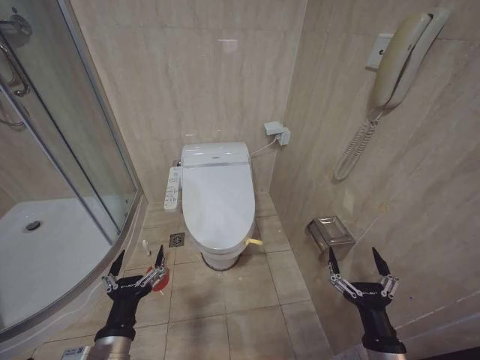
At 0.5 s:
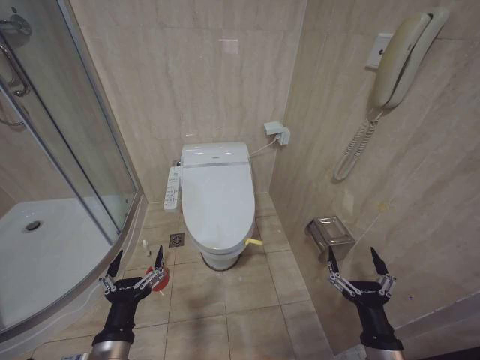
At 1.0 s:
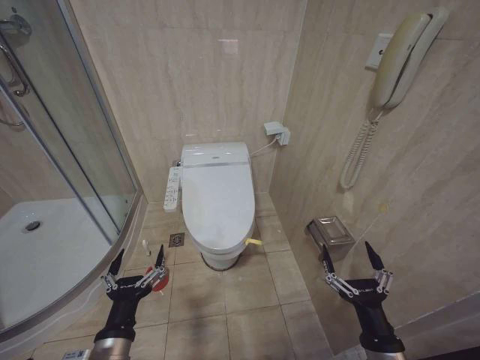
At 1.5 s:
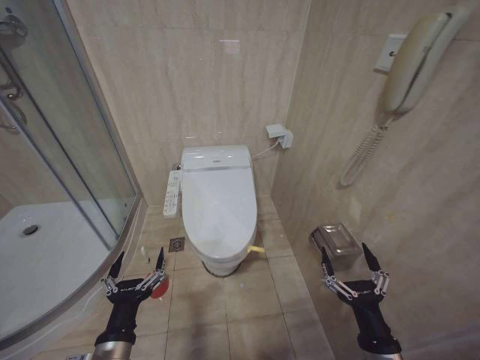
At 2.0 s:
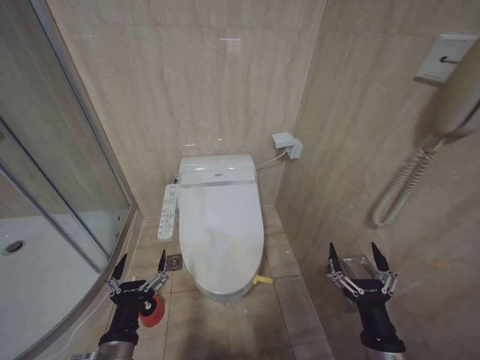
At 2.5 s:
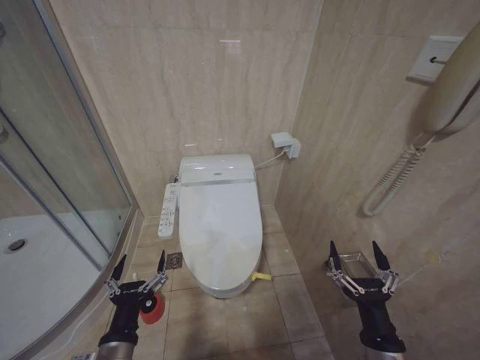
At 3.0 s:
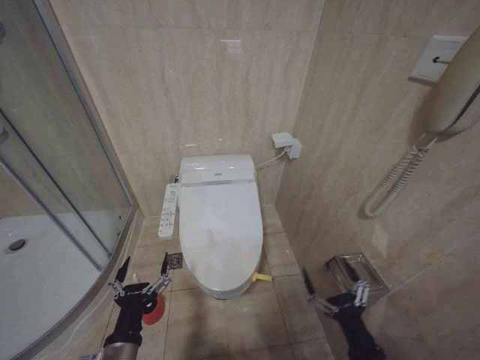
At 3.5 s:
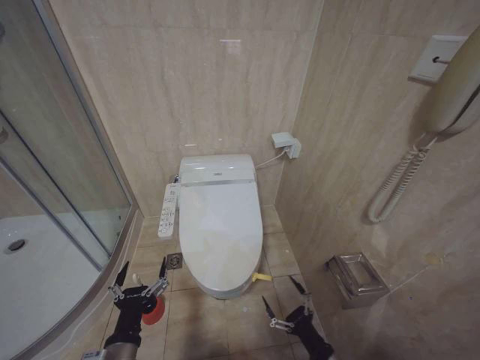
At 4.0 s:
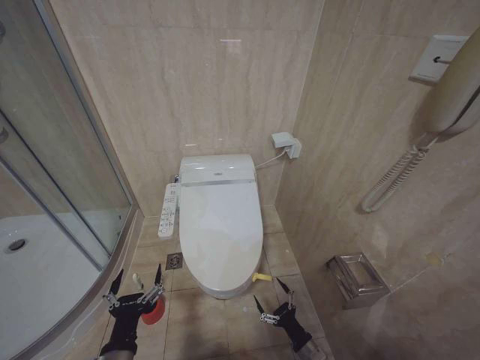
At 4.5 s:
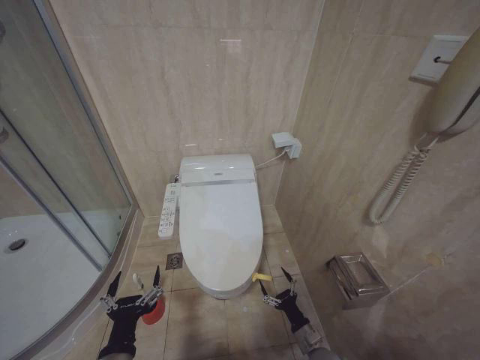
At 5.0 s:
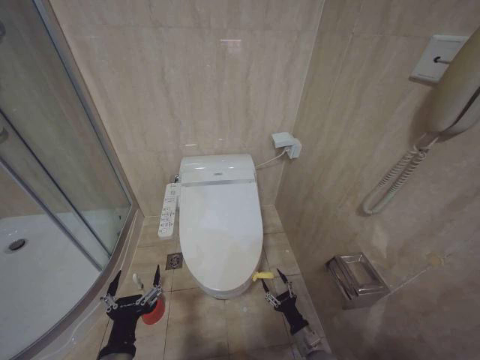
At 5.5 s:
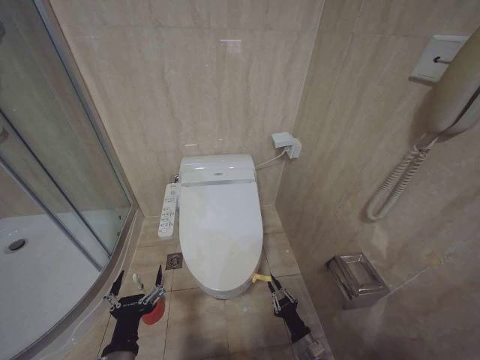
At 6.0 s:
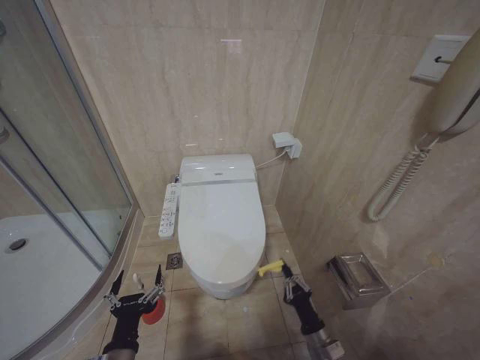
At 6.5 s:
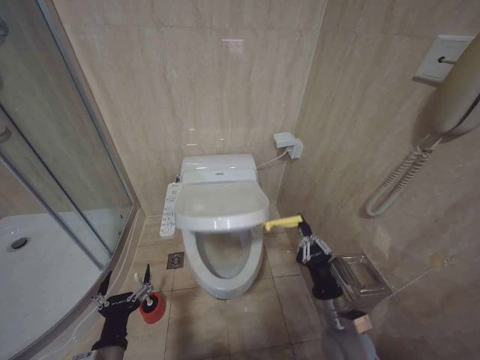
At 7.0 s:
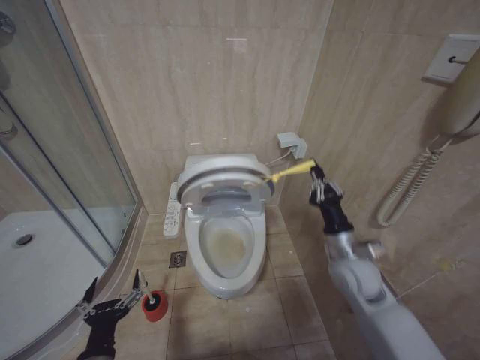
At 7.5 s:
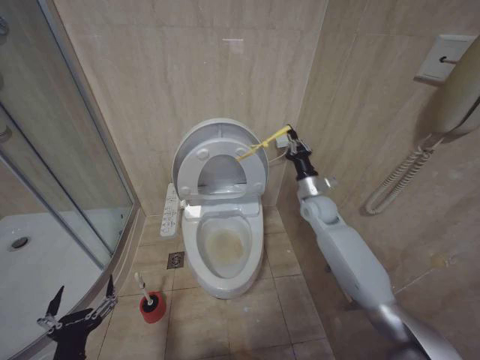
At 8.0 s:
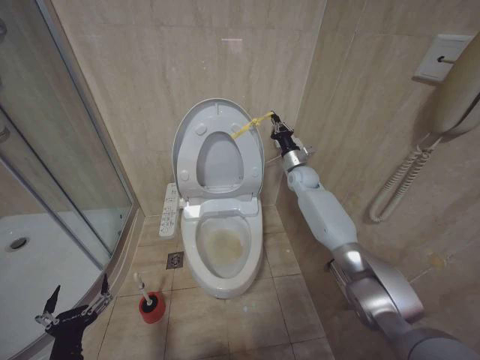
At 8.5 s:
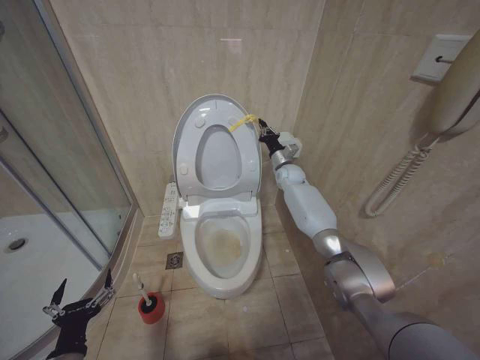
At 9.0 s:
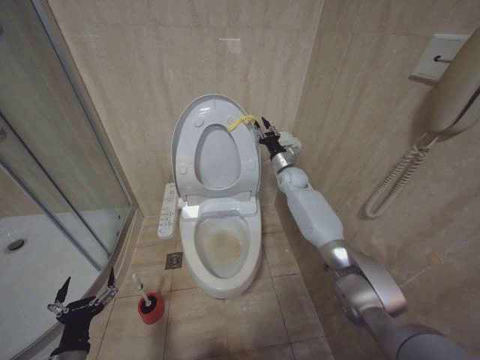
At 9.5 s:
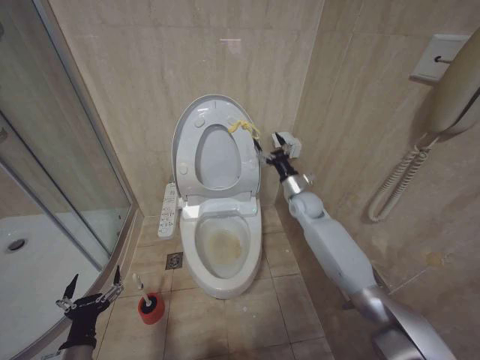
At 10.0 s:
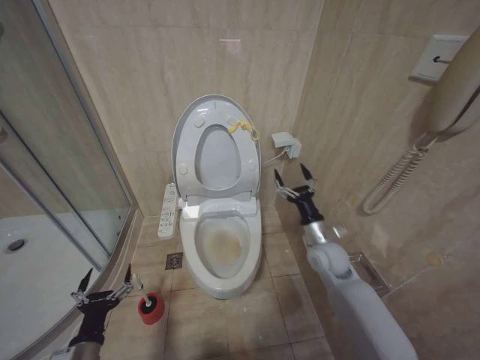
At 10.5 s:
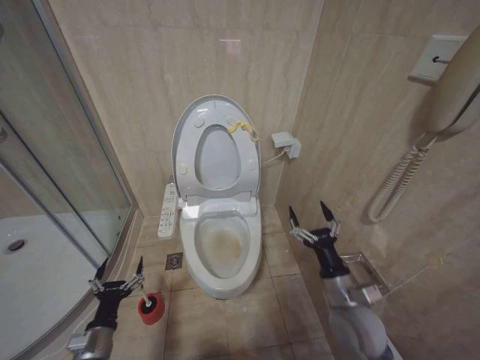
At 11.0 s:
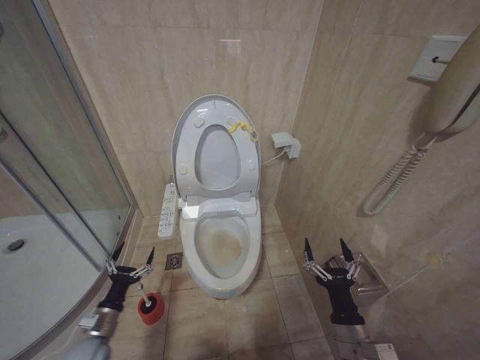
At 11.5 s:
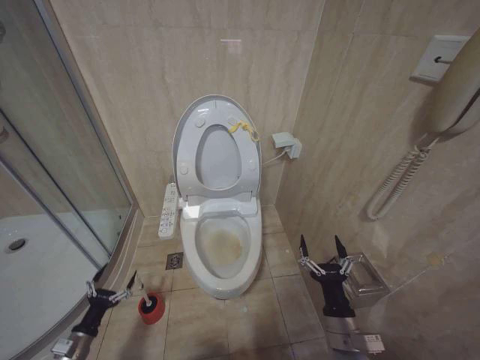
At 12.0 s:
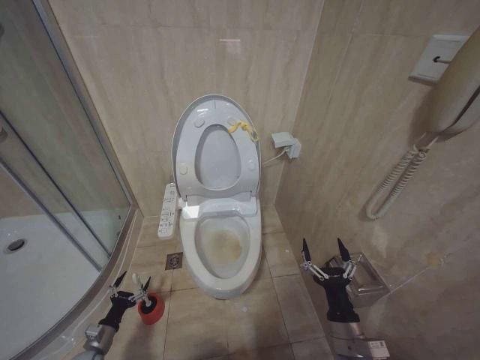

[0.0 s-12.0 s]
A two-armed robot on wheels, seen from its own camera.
Task of the whole recording: Open the toilet lid, clean the toilet bowl with a toilet brush, close the toilet lid, and flush.
2.0 to 4.0 s: The right gripper shifts approximately 20 cm downward.
4.0 to 6.0 s: The right gripper closes.
6.0 to 8.0 s: The left gripper moves to the left, approximately 10 cm. Meanwhile the right gripper travels forward and upward by some 50 cm.
8.0 to 10.0 s: The right gripper goes approximately 20 cm backward and downward, and opens its fingers. The left gripper moves roughly 5 cm.
10.0 to 12.0 s: The right gripper goes roughly 25 cm backward. The left gripper moves downward, to the left and forward, some 25 cm.

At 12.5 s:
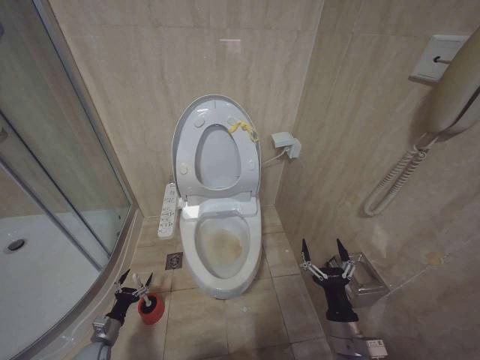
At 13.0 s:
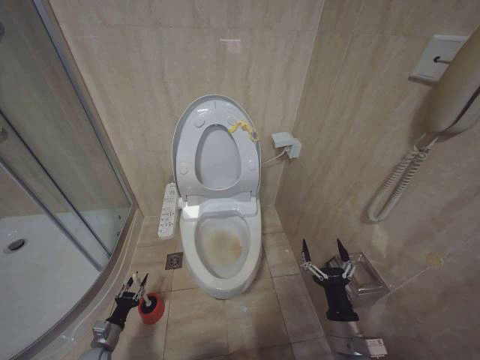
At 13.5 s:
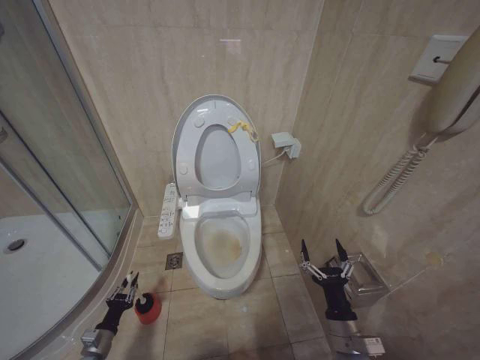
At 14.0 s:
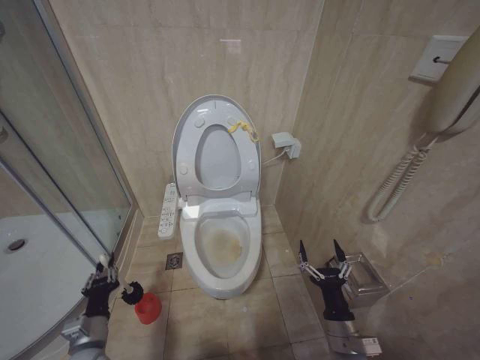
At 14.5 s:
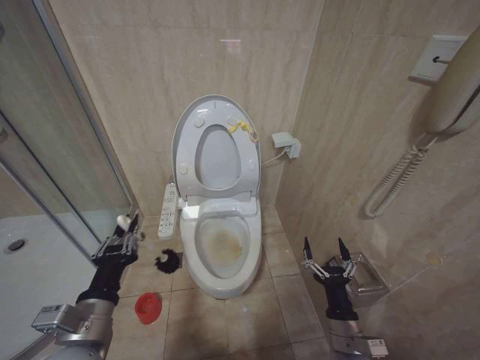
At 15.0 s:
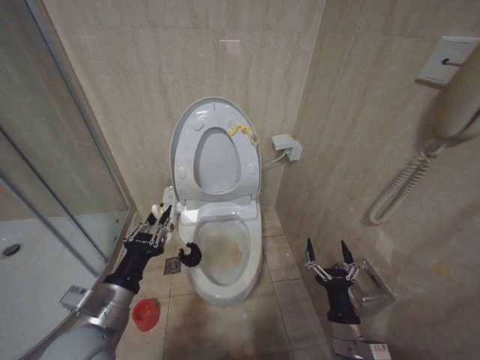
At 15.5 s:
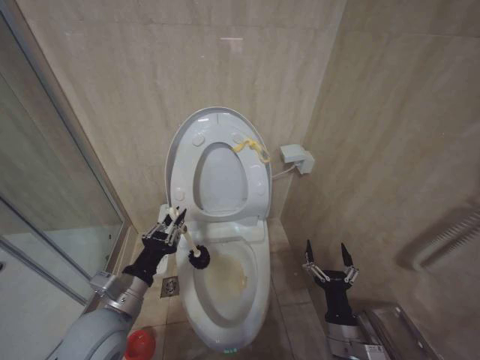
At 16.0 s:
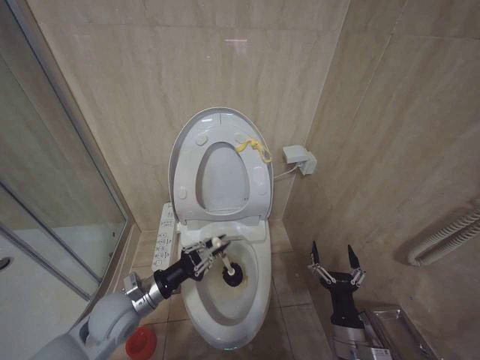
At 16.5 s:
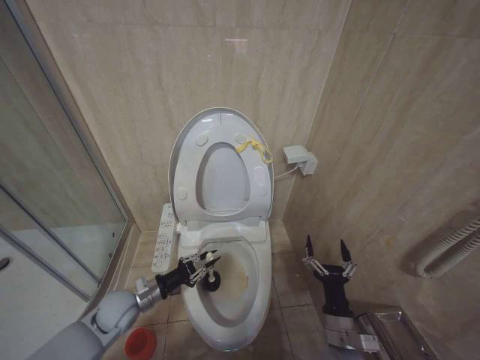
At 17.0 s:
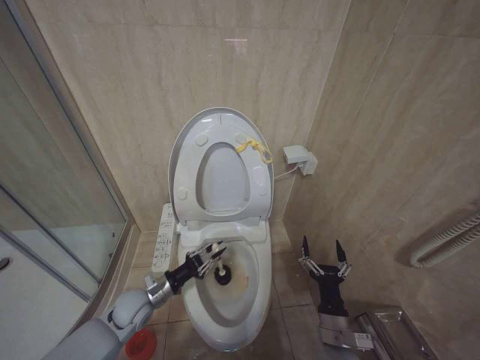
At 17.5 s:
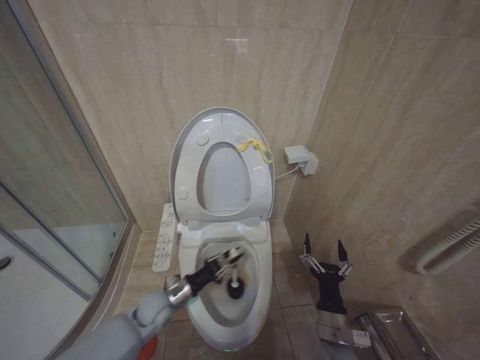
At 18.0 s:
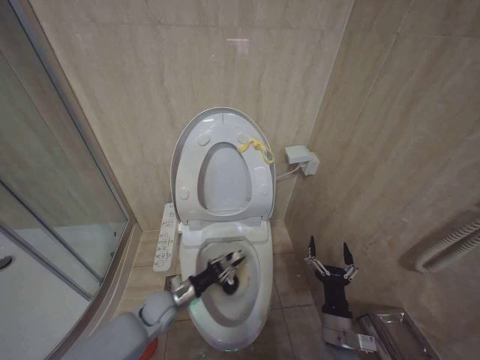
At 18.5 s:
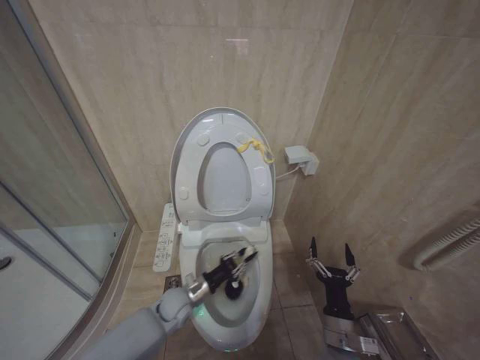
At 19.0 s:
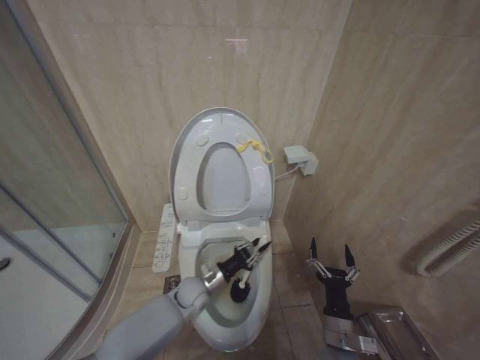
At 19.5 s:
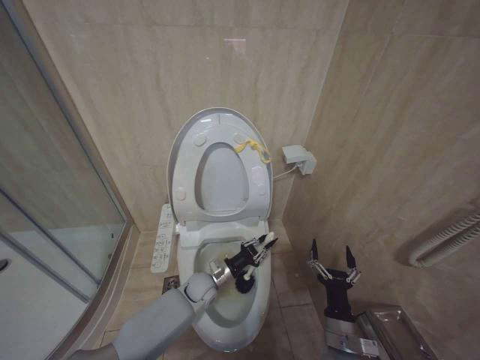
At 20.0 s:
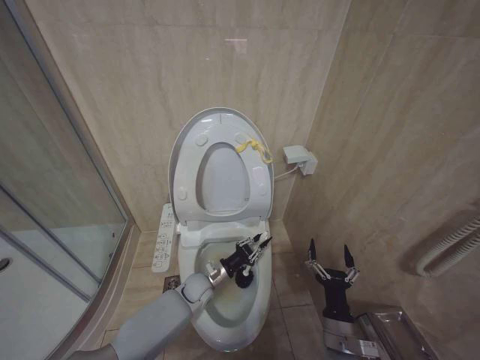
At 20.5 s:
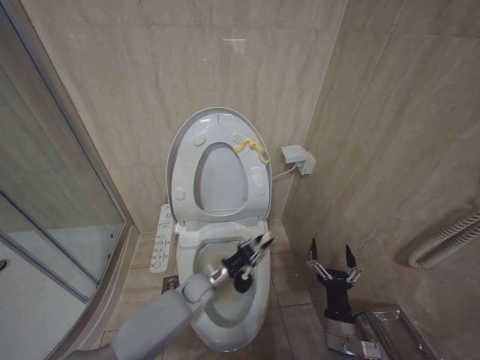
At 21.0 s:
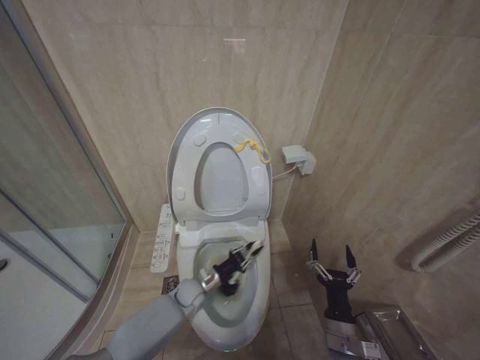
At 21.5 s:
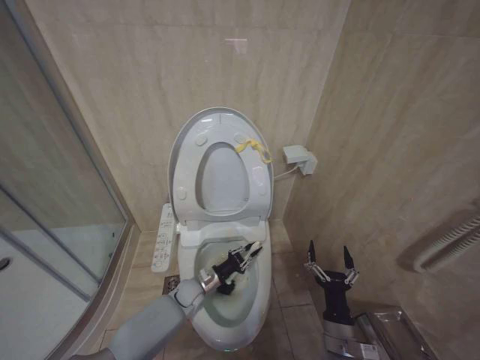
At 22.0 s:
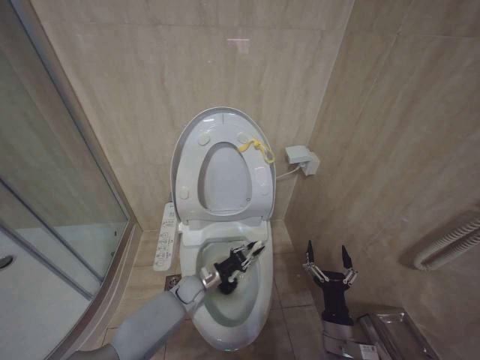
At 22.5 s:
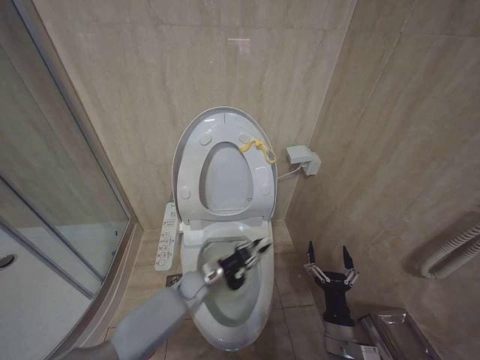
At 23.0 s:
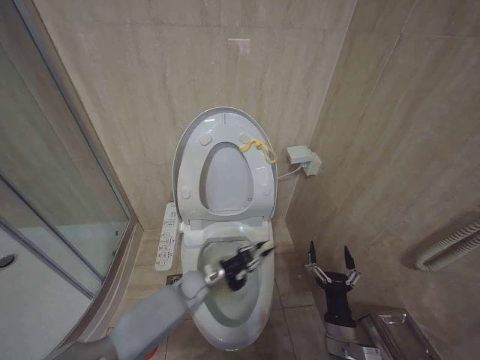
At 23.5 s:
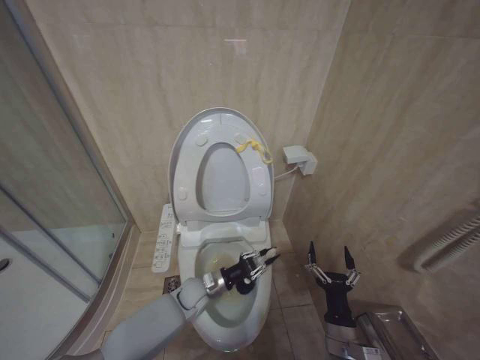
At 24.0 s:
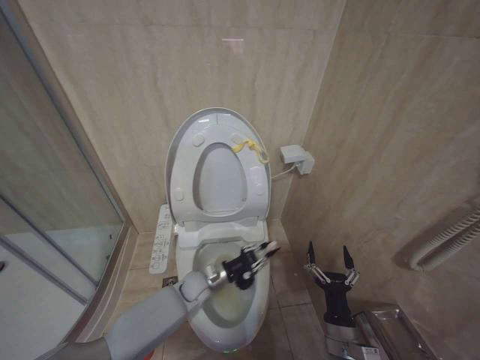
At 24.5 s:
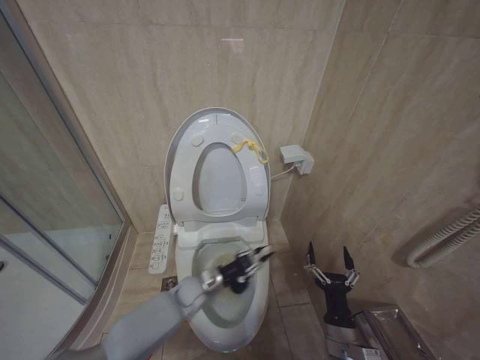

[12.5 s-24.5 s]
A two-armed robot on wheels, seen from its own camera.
Task of the whole recording: Open the toilet lid, clean the toilet bowl with a toilet brush, close the toilet lid, and flush.
12.5 to 14.5 s: The left gripper goes about 40 cm upward and to the right, and closes its fingers.
14.5 to 16.5 s: The left gripper moves forward and downward, roughly 20 cm.
16.5 to 18.5 s: The left gripper goes some 15 cm downward and to the right.
18.5 to 20.5 s: The left gripper goes about 10 cm to the right.
20.5 to 22.5 s: The left gripper is displaced to the left and downward by some 10 cm.
22.5 to 24.5 s: The left gripper heads upward and to the right, covering roughly 10 cm.

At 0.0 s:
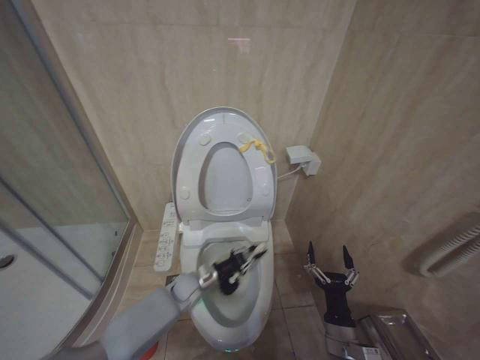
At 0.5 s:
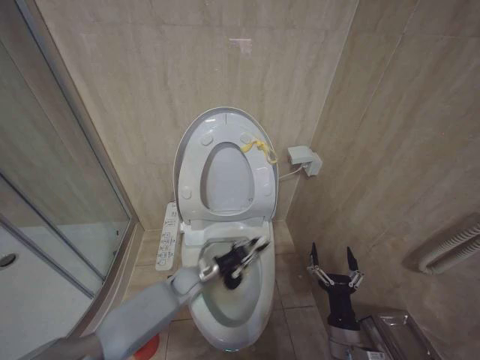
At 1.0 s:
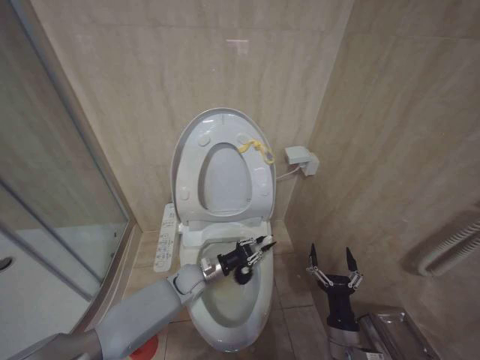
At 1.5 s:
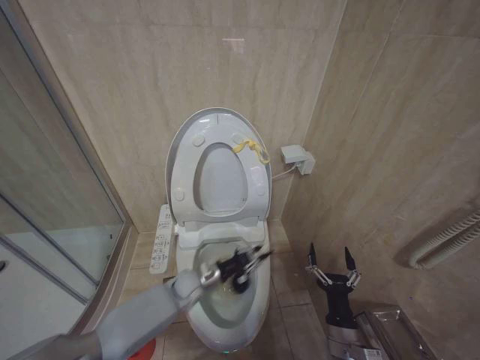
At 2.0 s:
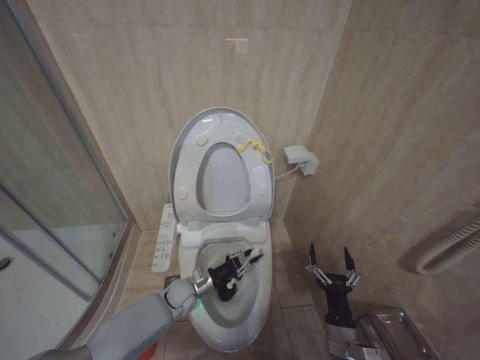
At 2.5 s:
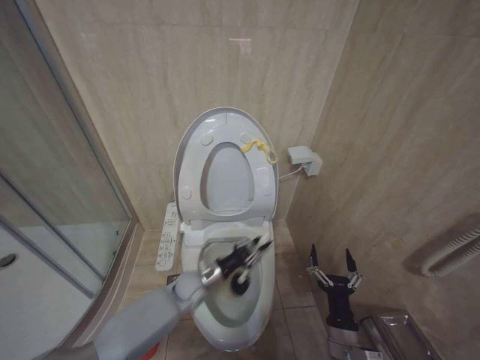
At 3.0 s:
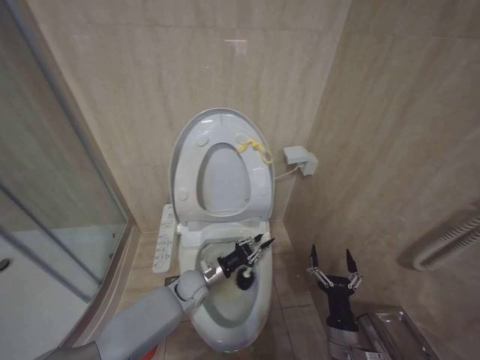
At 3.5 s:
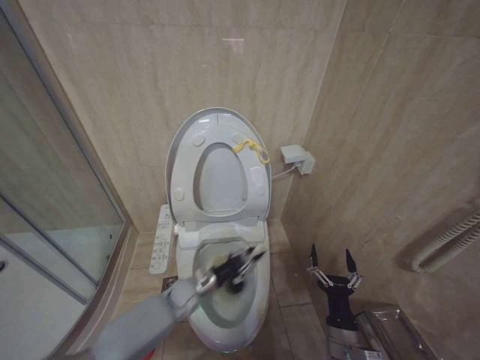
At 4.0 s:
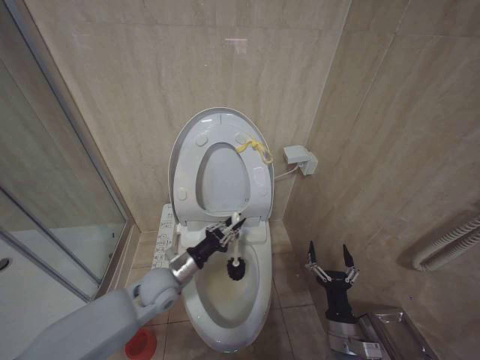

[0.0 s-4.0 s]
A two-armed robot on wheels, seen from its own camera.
Task of the whole recording: Open the toilet lid, clean the toilet bowl with a toilet brush, close the toilet lid, and flush.
2.0 to 4.0 s: The left gripper heads upward, covering some 10 cm.
